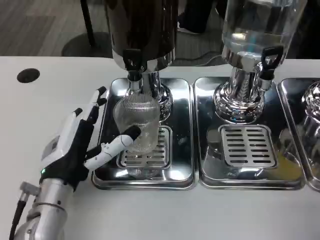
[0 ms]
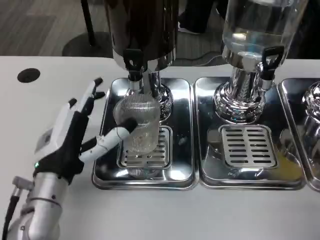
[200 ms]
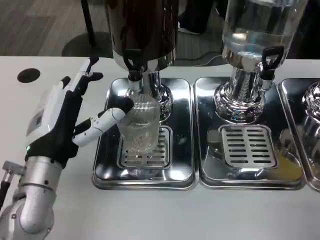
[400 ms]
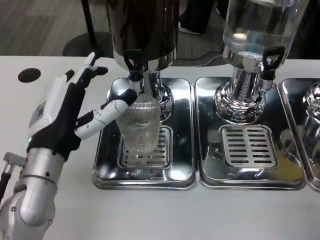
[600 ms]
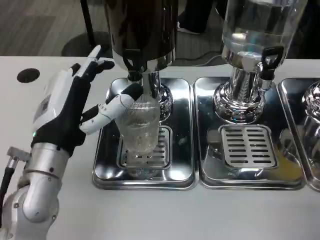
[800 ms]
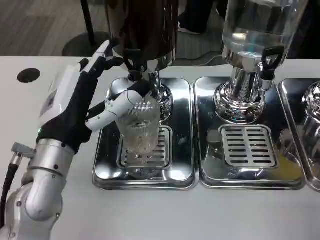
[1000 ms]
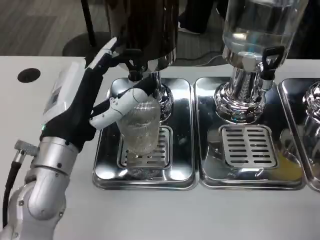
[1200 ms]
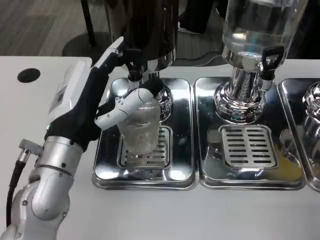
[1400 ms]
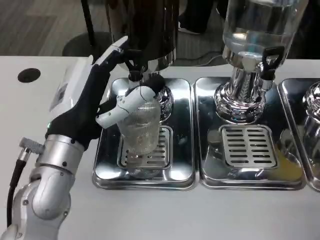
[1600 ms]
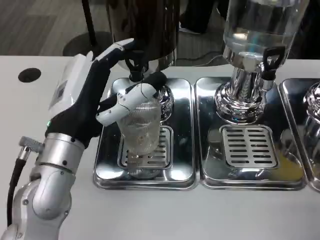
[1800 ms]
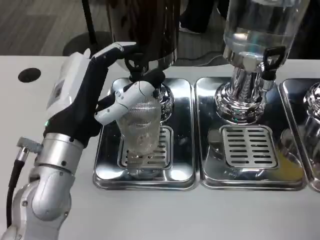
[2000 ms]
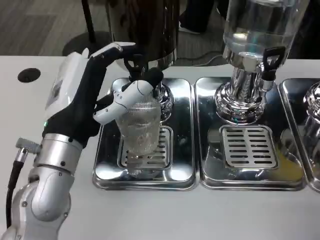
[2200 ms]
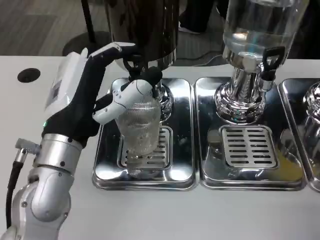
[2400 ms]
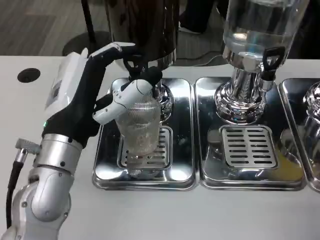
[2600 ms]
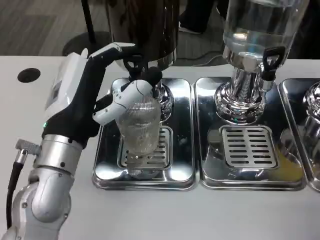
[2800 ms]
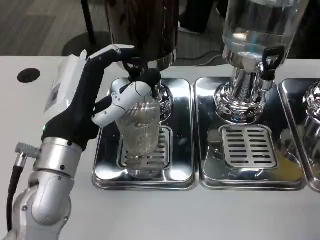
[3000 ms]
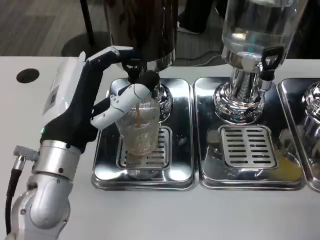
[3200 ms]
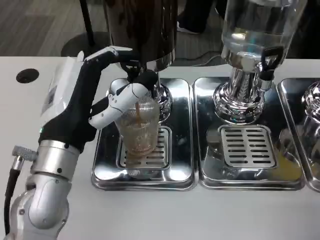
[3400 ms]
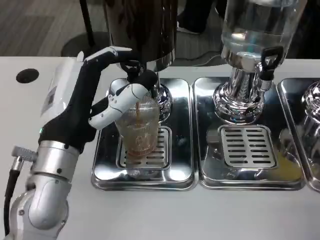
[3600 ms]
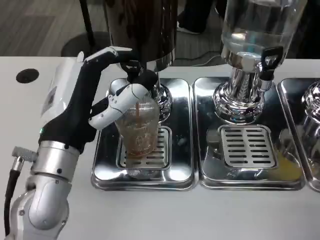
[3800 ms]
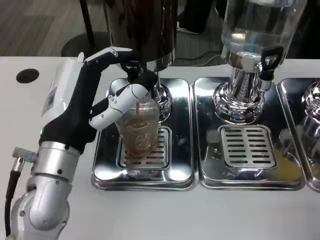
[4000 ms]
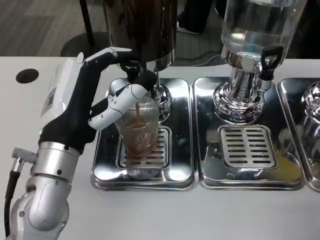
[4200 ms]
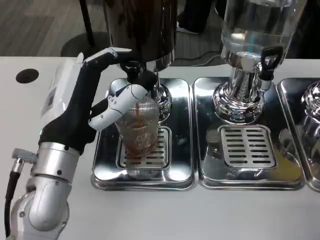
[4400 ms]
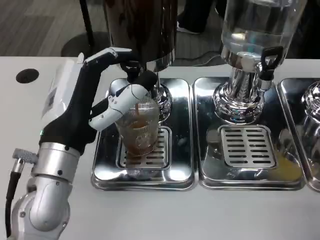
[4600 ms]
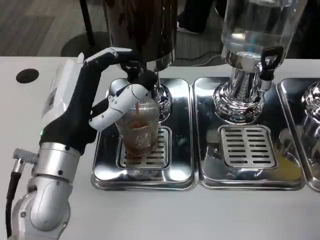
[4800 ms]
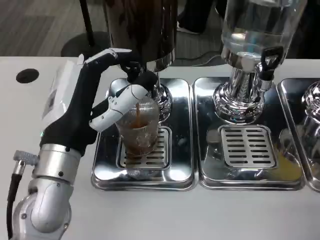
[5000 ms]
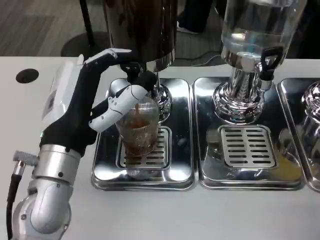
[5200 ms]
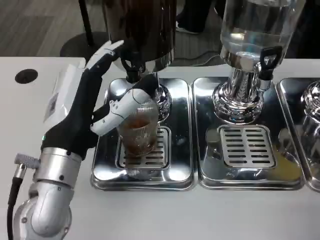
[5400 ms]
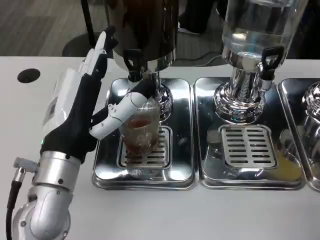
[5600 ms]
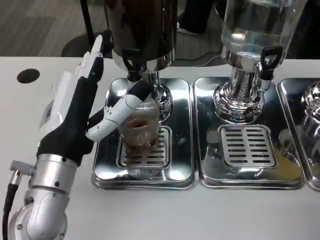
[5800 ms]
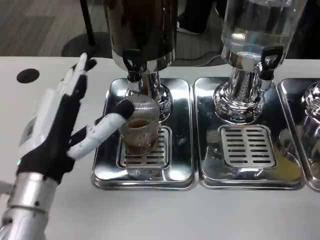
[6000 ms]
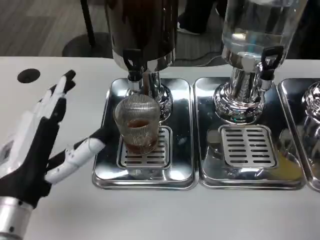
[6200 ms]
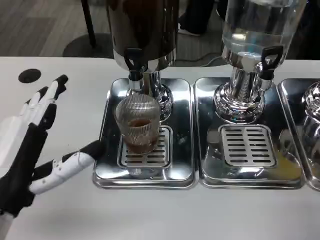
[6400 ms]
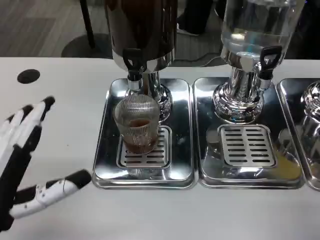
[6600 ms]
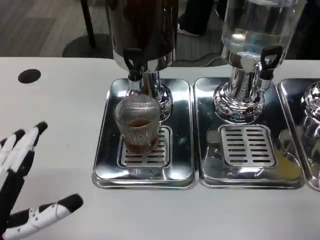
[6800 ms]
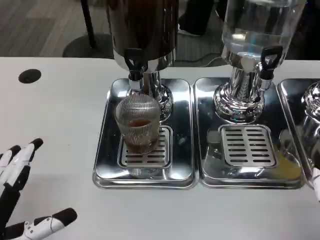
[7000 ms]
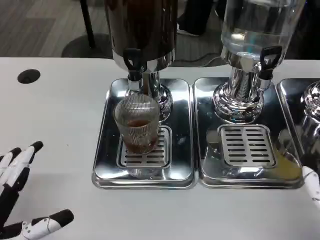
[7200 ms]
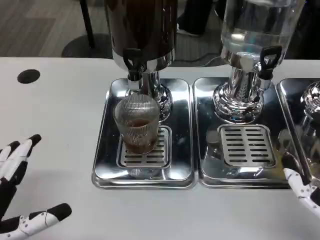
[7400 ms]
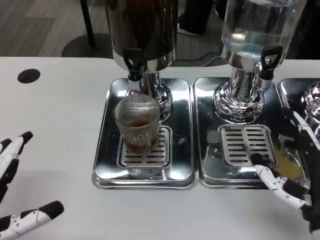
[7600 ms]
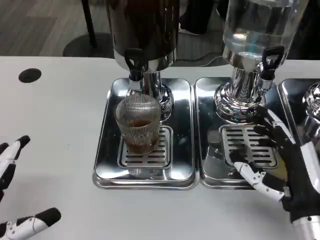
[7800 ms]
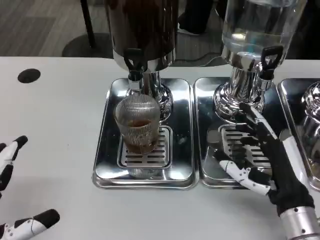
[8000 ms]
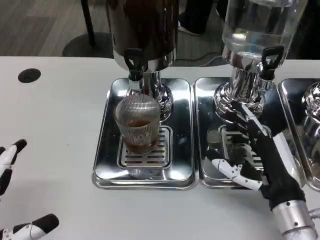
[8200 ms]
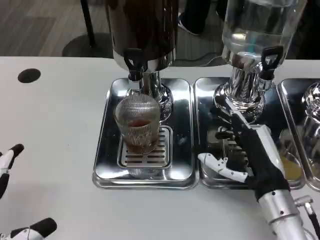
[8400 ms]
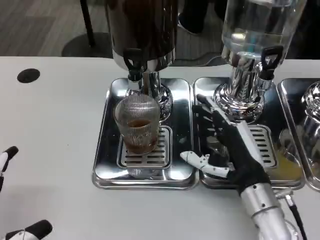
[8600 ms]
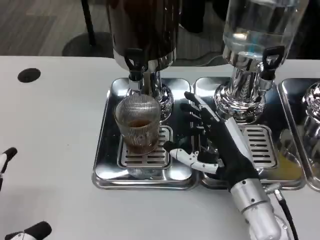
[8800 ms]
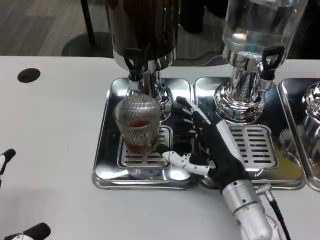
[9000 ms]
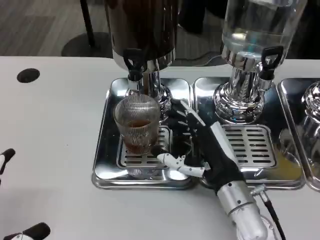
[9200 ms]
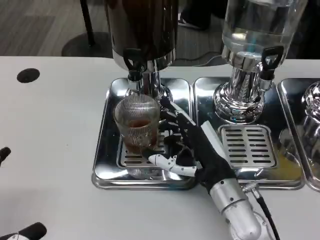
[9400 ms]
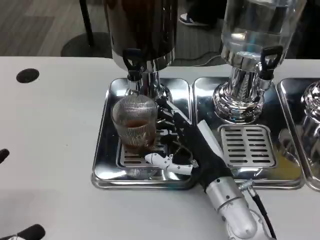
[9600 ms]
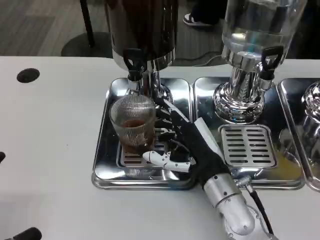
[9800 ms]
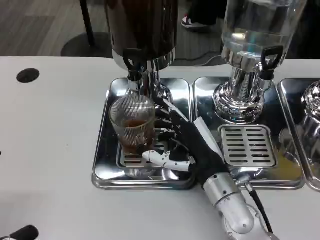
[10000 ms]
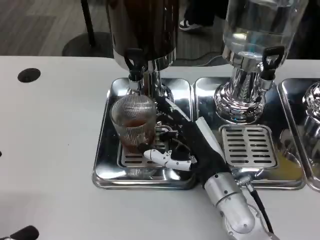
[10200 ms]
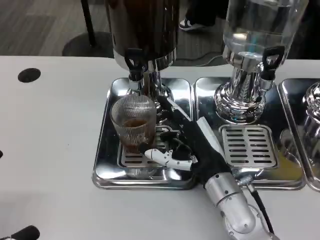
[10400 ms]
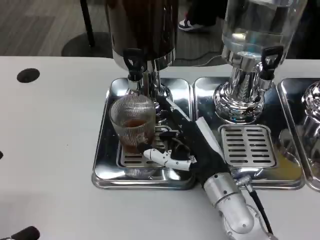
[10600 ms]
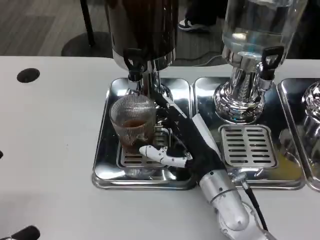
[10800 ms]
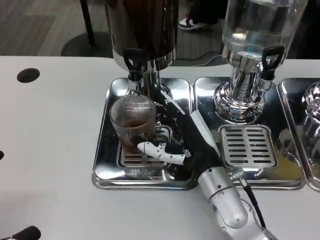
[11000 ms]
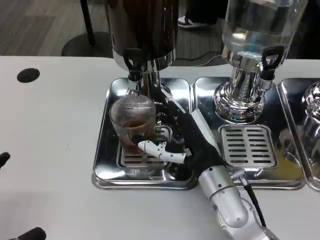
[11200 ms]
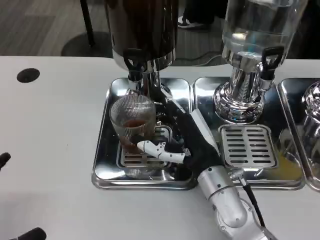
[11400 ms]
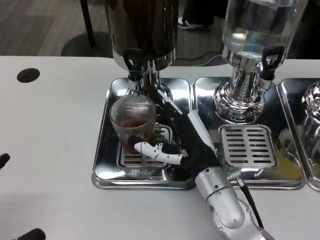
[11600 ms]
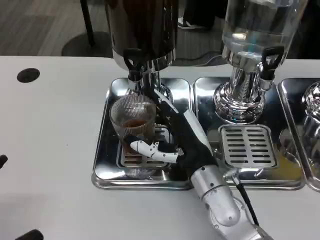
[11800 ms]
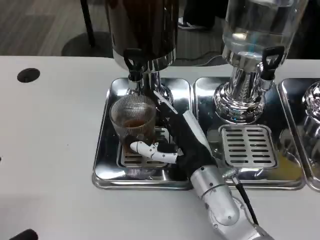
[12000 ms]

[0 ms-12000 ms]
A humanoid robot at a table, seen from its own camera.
Task of the whole recording: Grasp the cup under the faucet to collect the drink, then remove the cup.
0 ms to 1600 ms: The left hand shifts approximately 10 cm upward.
1600 ms to 3000 ms: Both hands stay about where they are.
3000 ms to 4400 ms: Both hands stay put.
4400 ms to 6000 ms: The hands stay close to where they were, moving slightly.
6000 ms to 7600 ms: The left hand moves to the left and backward, approximately 15 cm; the right hand goes about 5 cm forward.
7600 ms to 9000 ms: The right hand moves to the left and forward, some 10 cm.
9000 ms to 12000 ms: The hands move only a little.

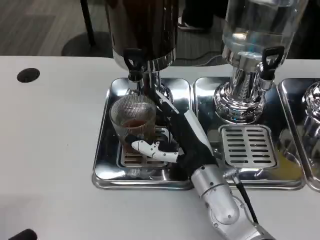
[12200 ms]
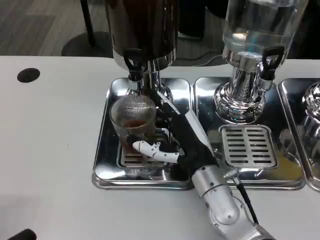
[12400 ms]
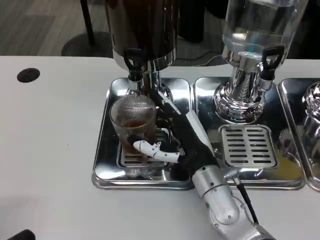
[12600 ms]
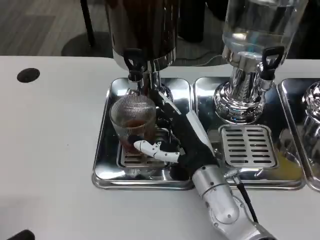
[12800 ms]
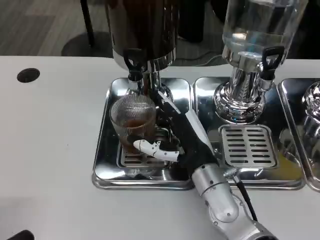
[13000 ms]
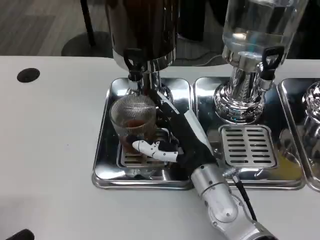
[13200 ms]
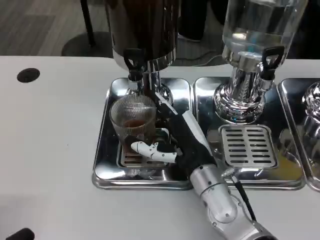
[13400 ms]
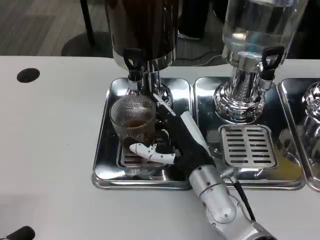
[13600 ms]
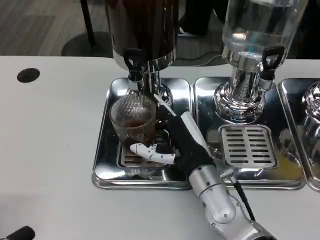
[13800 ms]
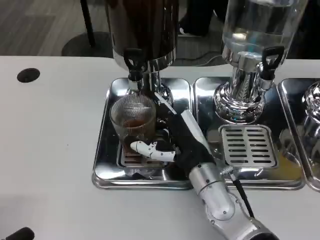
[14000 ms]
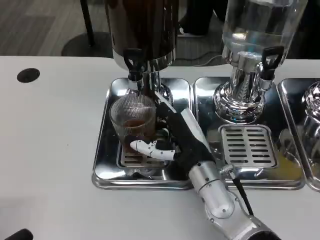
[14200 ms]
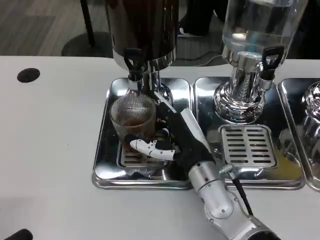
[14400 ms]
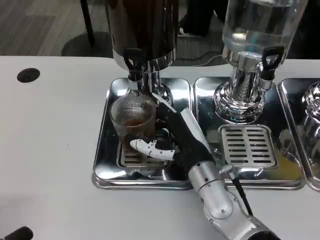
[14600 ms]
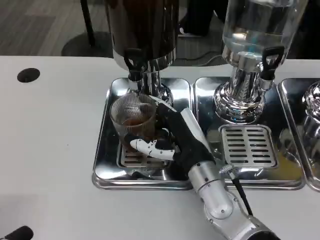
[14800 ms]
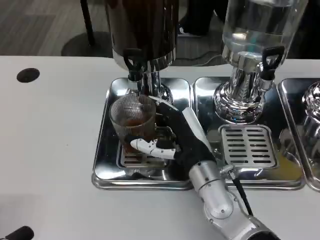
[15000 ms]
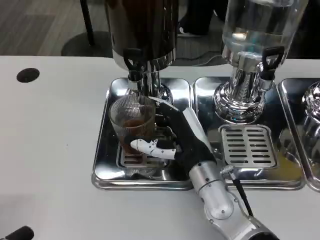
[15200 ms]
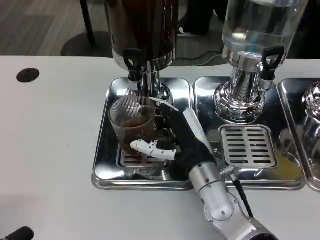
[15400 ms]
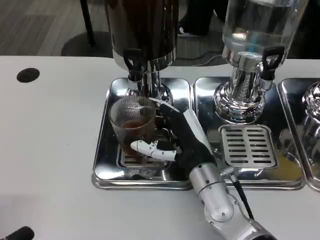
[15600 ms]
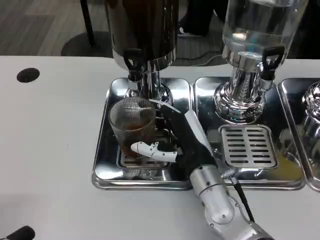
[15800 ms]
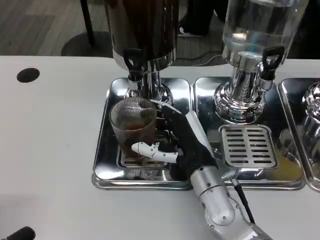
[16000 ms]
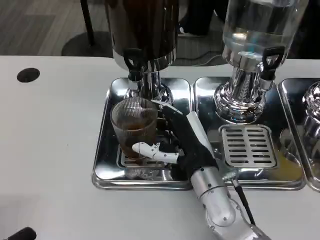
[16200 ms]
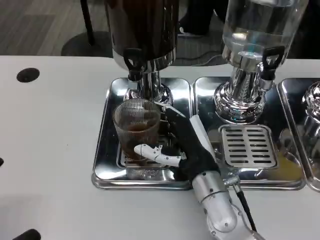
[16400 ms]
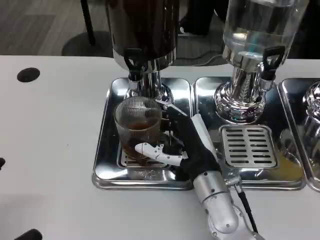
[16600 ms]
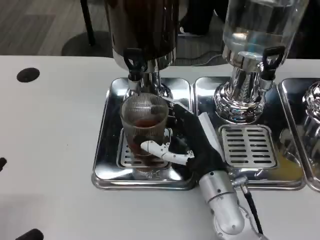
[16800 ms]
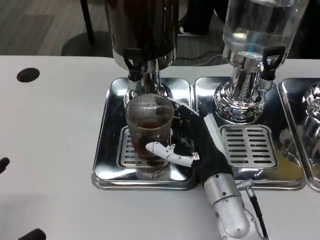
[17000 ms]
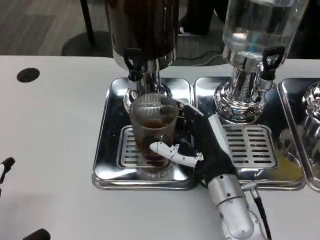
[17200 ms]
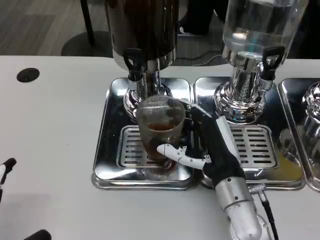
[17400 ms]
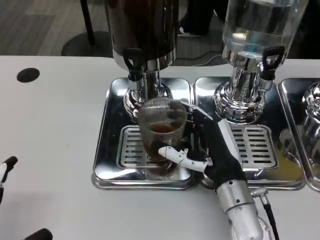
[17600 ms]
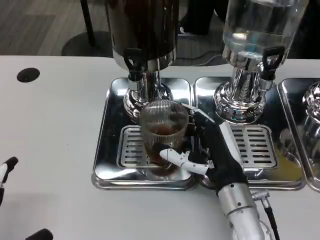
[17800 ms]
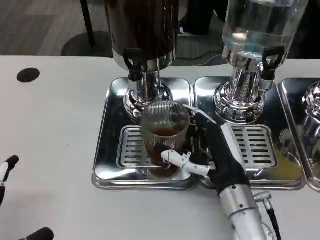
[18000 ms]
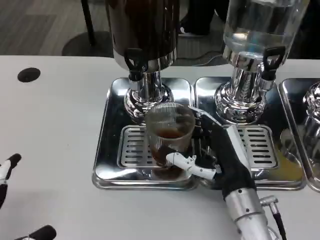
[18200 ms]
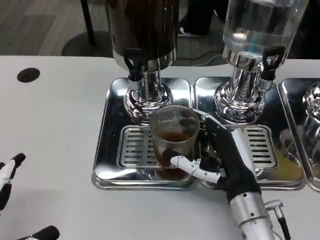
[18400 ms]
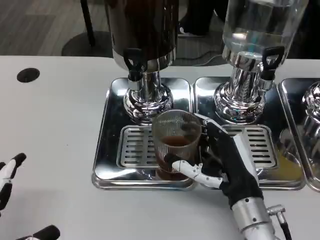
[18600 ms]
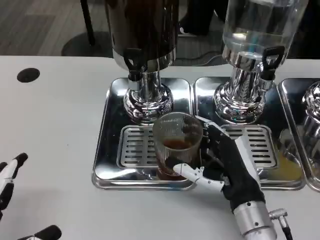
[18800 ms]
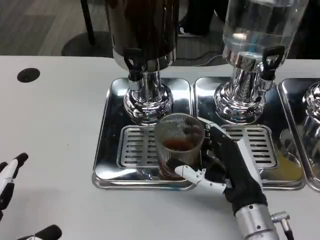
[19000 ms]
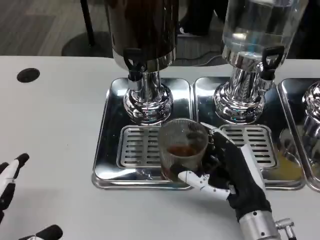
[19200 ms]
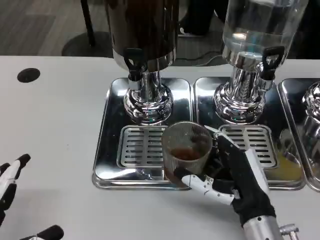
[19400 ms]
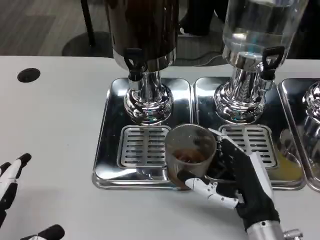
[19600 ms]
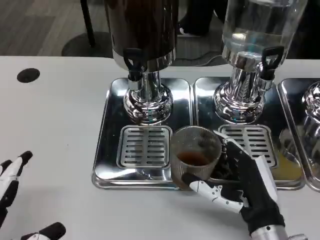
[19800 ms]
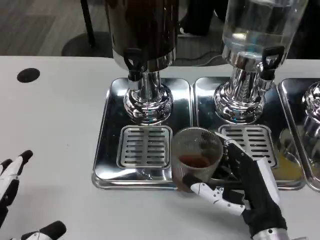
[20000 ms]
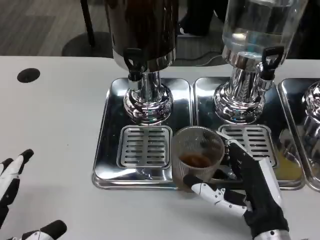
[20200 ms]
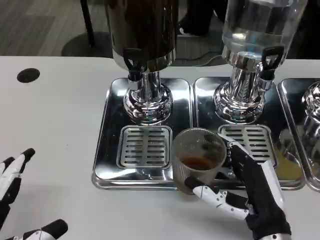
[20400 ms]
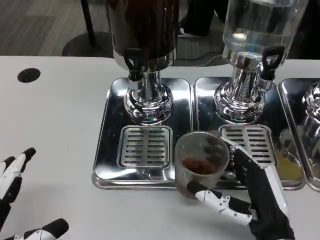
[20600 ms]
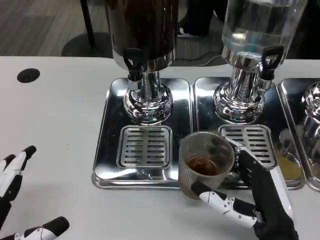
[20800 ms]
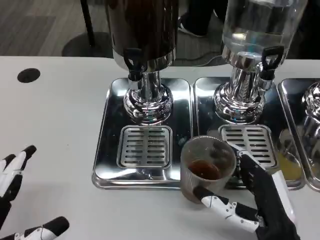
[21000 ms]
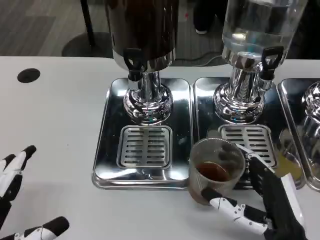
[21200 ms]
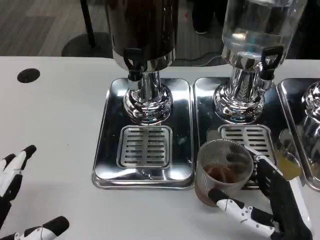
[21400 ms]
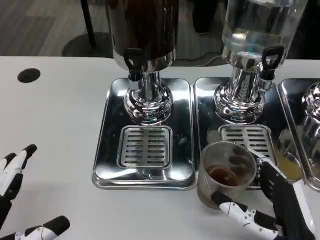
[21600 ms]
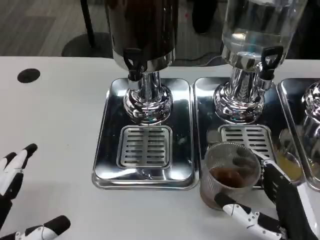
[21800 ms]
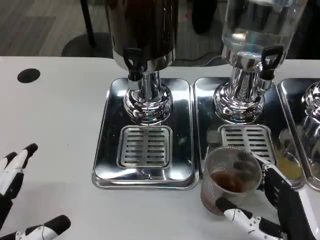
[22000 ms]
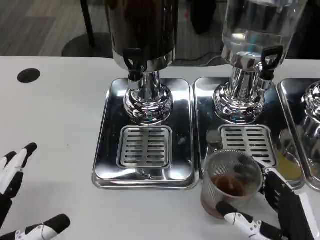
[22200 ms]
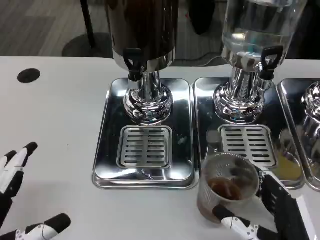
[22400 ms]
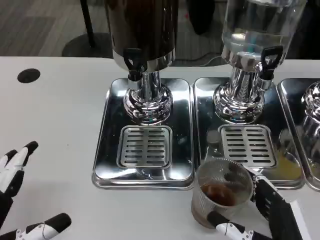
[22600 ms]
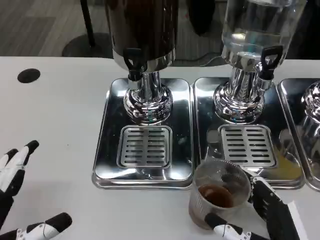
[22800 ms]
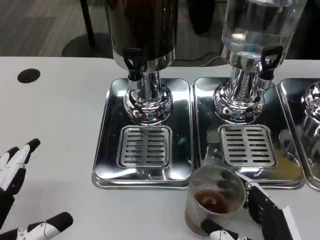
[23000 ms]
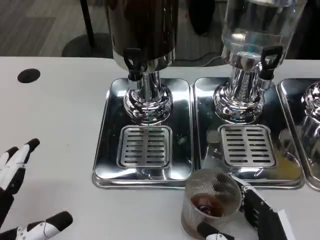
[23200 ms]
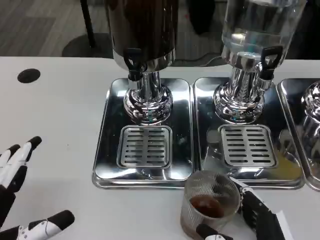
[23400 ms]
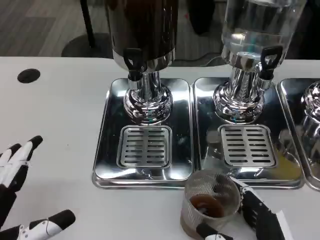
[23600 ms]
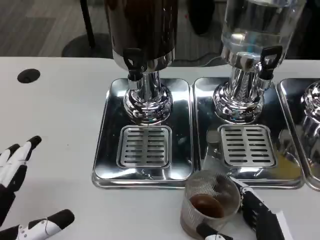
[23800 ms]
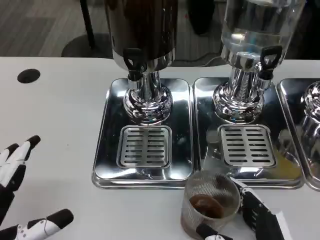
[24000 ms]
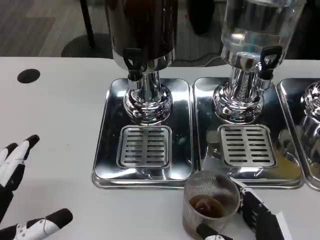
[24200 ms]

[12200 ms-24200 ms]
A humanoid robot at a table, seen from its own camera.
Task of the whole recording: Grasp the cup under the faucet to collect the drink, then remove the cup.
12200 ms to 13800 ms: Both hands stay about where they are.
13800 ms to 15200 ms: Neither hand changes place.
15200 ms to 16600 ms: The hands make only small movements.
16600 ms to 18200 ms: The right hand ends up approximately 5 cm from where it was.
18200 ms to 19800 ms: The right hand moves backward, about 5 cm.
19800 ms to 21200 ms: There are only small adjustments of the hands.
21200 ms to 24200 ms: The hands stay close to where they were, moving slightly.
